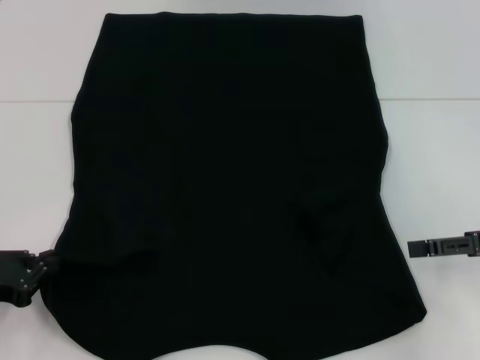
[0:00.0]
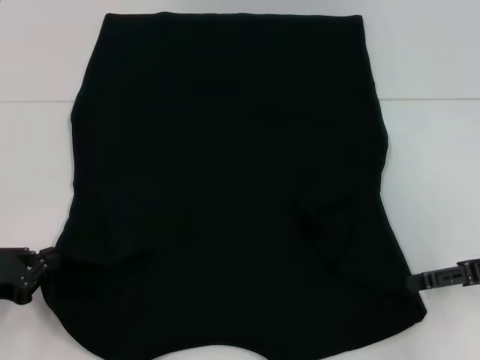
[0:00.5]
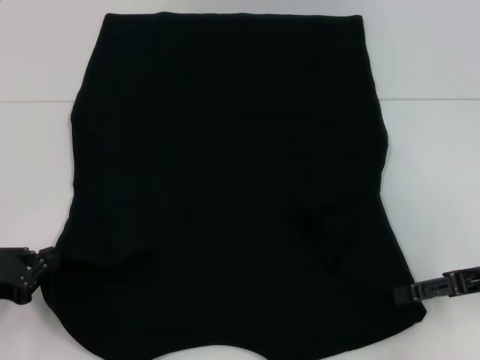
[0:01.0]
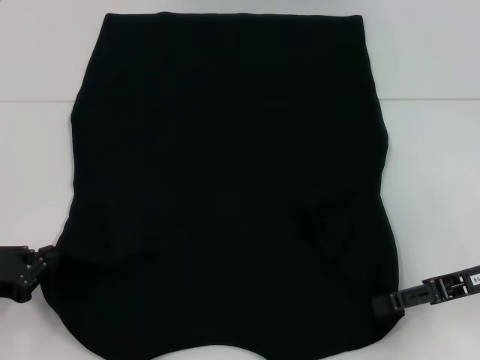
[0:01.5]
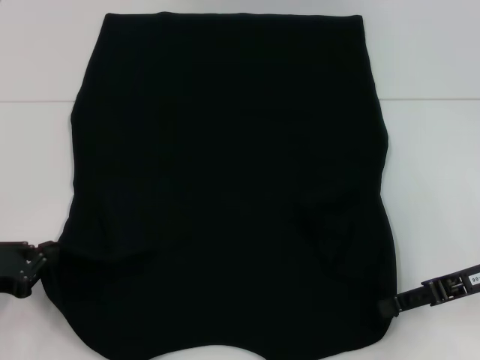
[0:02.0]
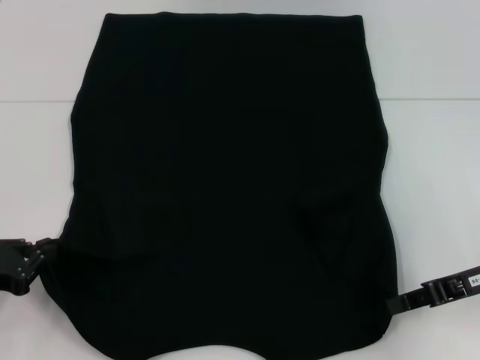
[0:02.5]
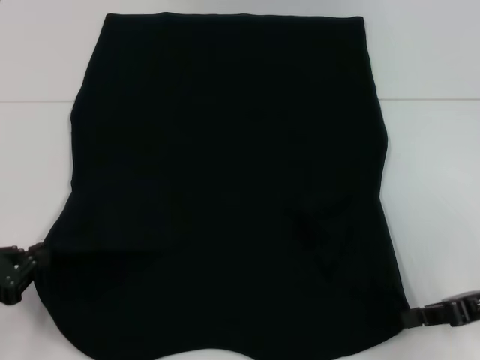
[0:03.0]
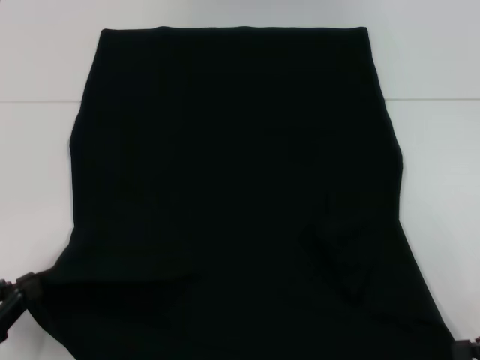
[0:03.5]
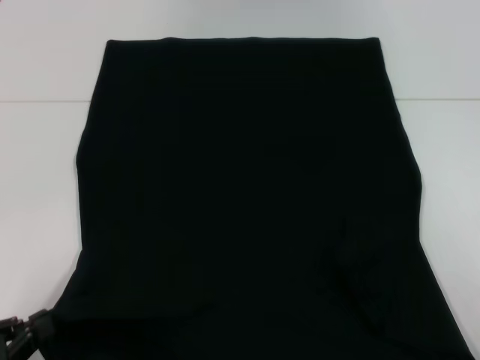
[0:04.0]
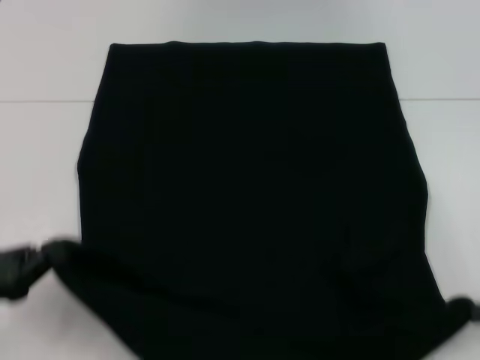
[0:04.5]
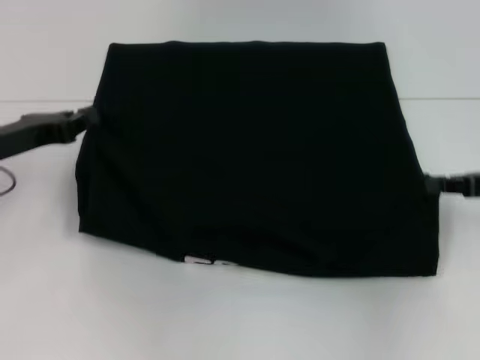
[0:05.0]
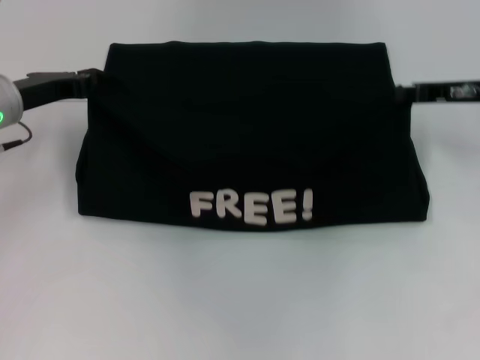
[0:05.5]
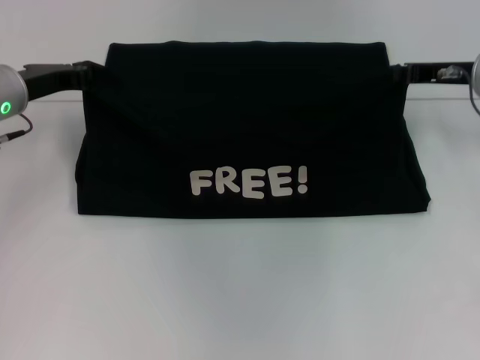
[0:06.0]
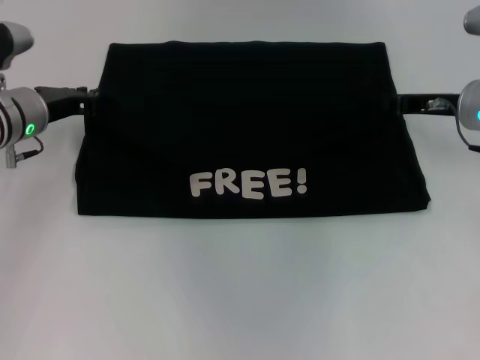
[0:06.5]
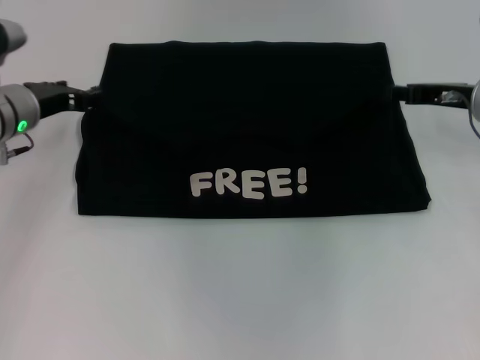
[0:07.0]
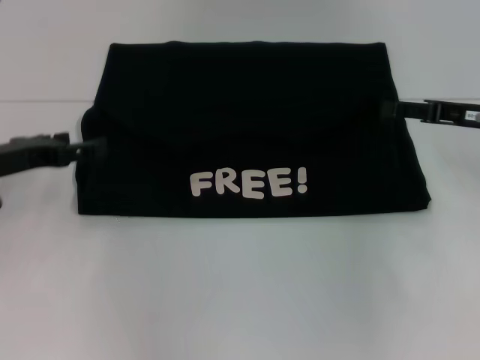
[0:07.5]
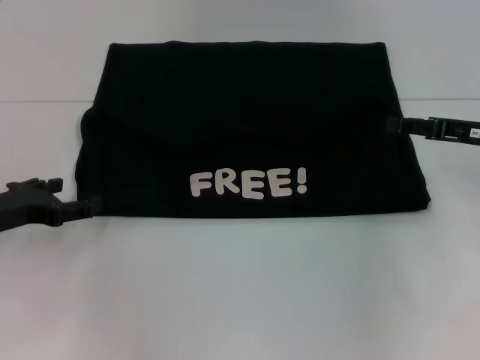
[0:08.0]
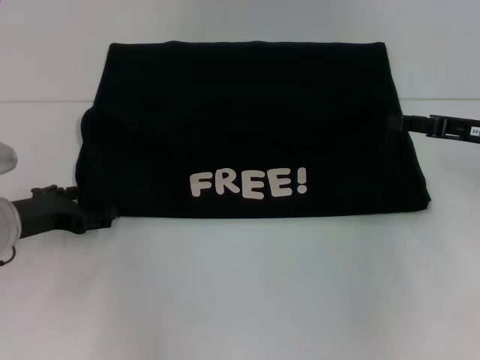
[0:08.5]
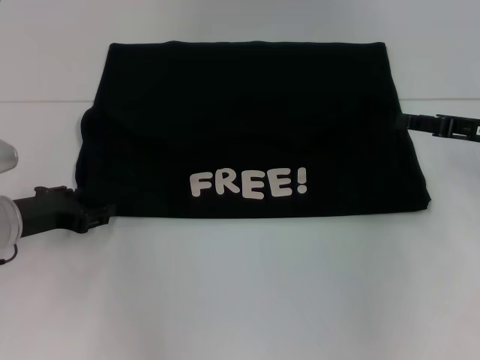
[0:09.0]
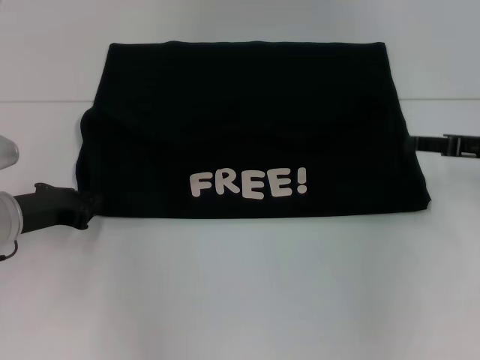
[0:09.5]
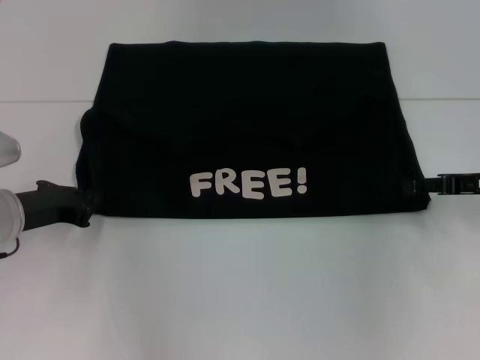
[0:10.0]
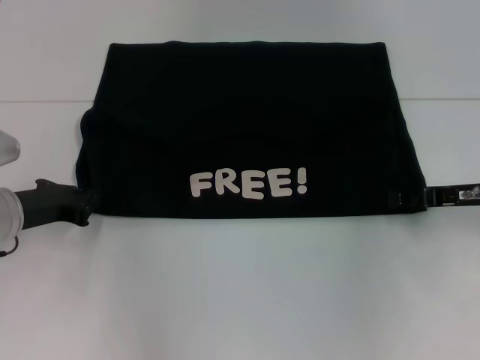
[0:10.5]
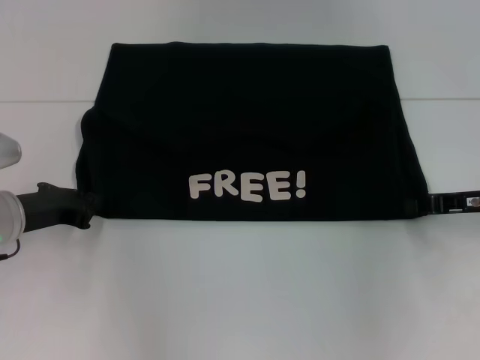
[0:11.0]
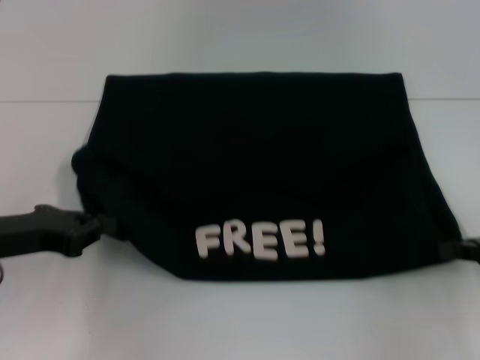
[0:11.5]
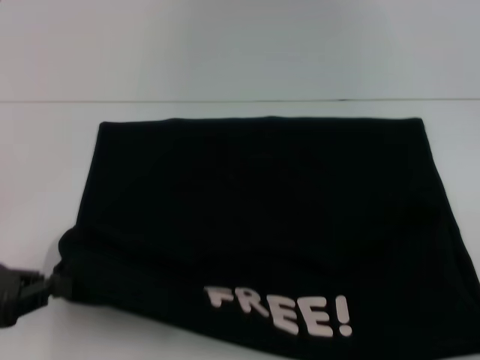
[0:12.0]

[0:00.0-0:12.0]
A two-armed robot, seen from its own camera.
Step, 0:00.0 to 0:02.5: Grab the bottom right corner with your right hand.
Step, 0:03.0 to 0:06.5: Fold the clothes with your left hand.
Step, 0:03.0 to 0:06.5: Fold the clothes with your right hand.
0:00.0 to 0:02.0: The right gripper shifts by about 5 cm.
0:02.0 to 0:04.0: The left gripper heads backward, covering roughly 10 cm, while the right gripper moves backward and to the right, some 15 cm, and closes.
0:04.0 to 0:06.0: The right gripper is displaced forward and to the left by approximately 30 cm, while the left gripper goes roughly 30 cm forward.
0:06.0 to 0:08.0: The right gripper is displaced backward by roughly 5 cm, and opens. Meanwhile the left gripper is displaced backward and downward by roughly 15 cm, and opens its fingers.
0:08.0 to 0:10.0: The left gripper closes.
0:10.0 to 0:12.0: The right gripper goes approximately 15 cm backward and to the right, and closes up. The left gripper goes some 15 cm backward, upward and to the left.

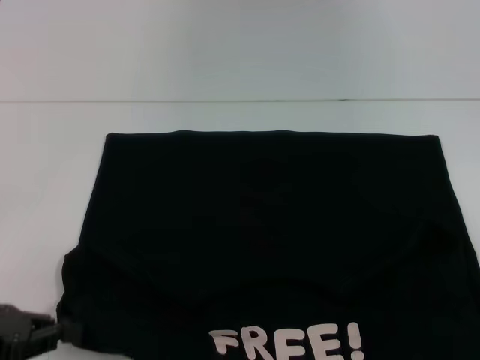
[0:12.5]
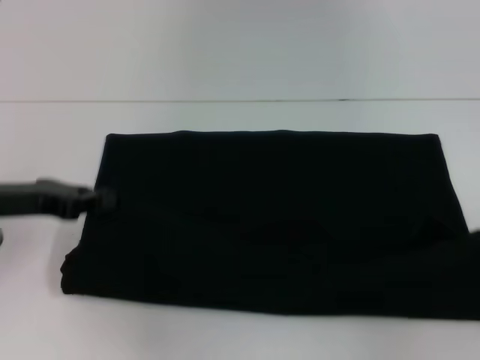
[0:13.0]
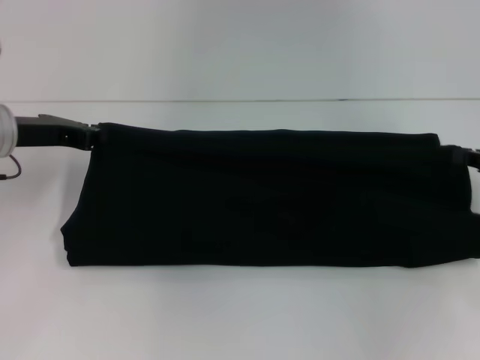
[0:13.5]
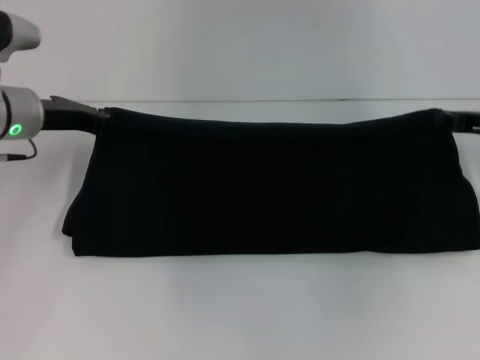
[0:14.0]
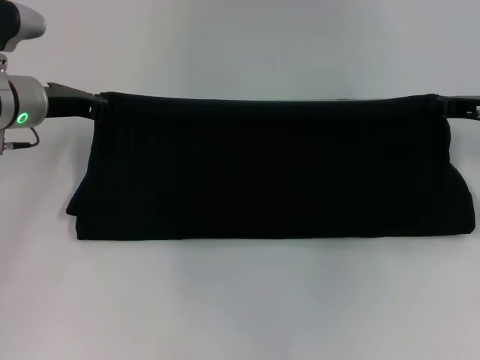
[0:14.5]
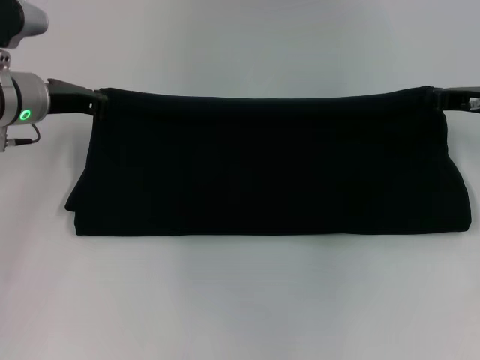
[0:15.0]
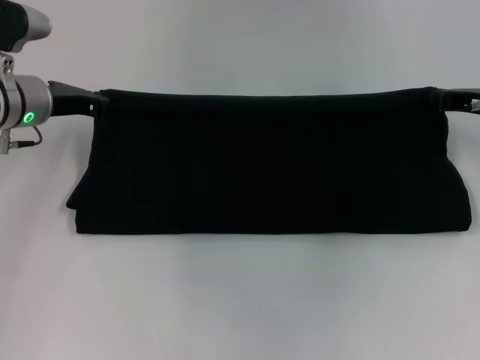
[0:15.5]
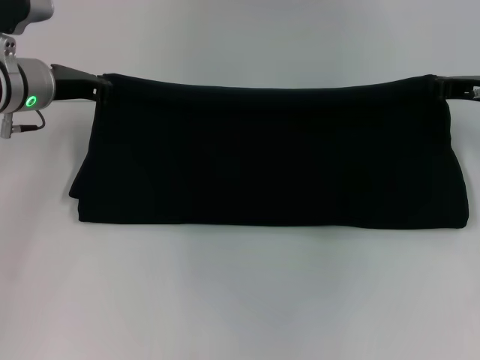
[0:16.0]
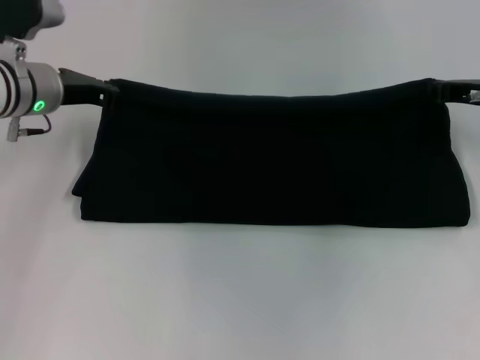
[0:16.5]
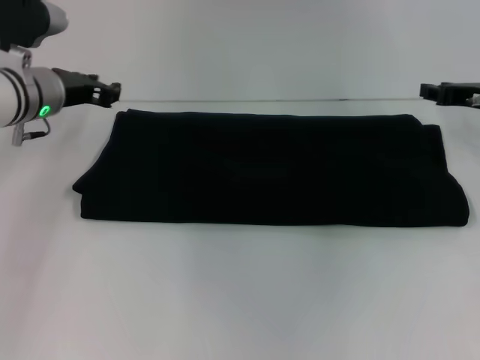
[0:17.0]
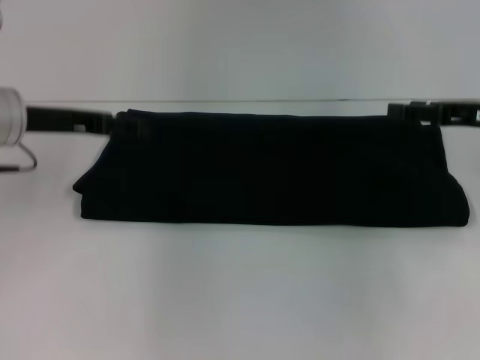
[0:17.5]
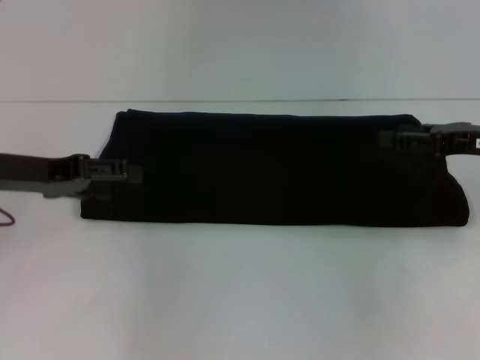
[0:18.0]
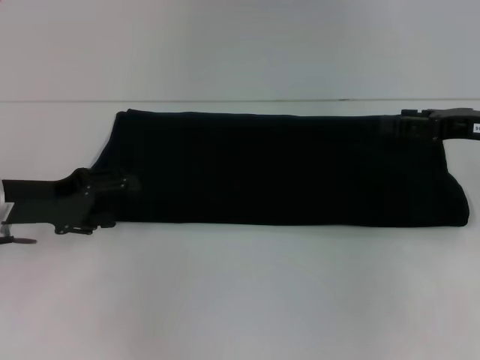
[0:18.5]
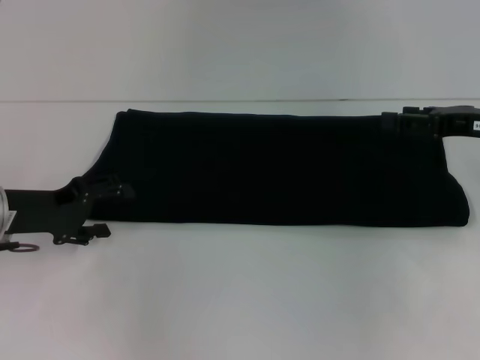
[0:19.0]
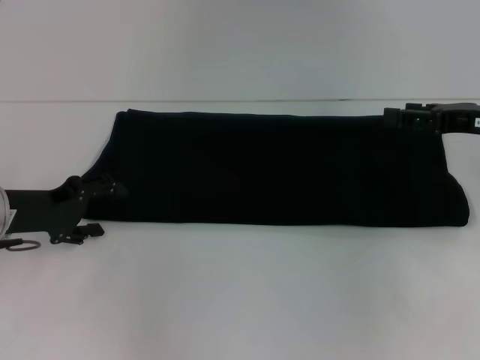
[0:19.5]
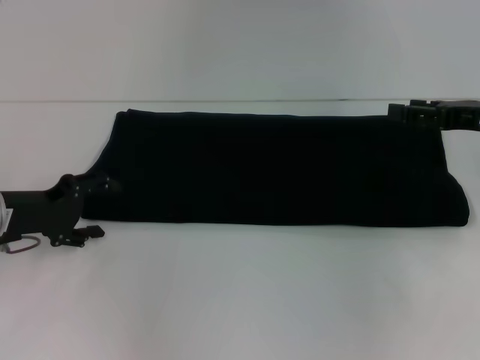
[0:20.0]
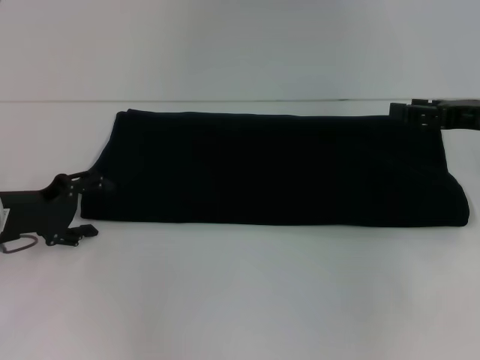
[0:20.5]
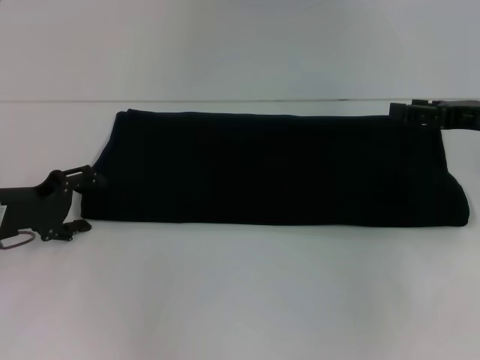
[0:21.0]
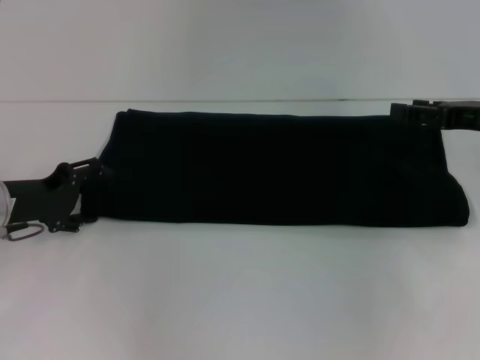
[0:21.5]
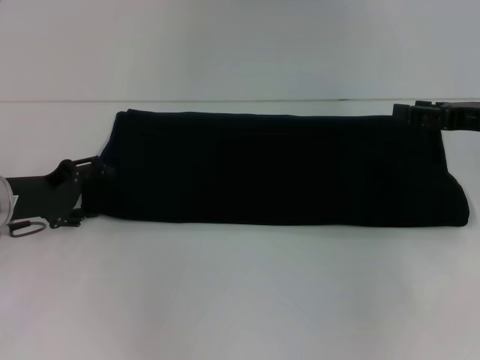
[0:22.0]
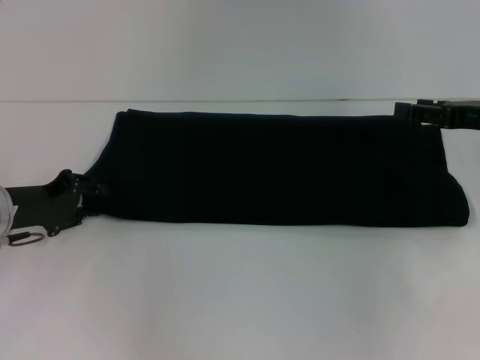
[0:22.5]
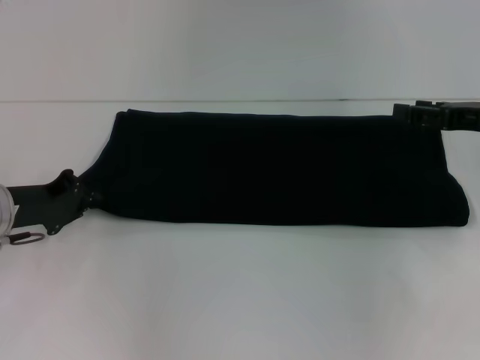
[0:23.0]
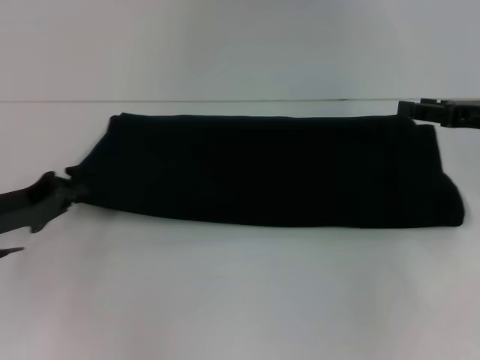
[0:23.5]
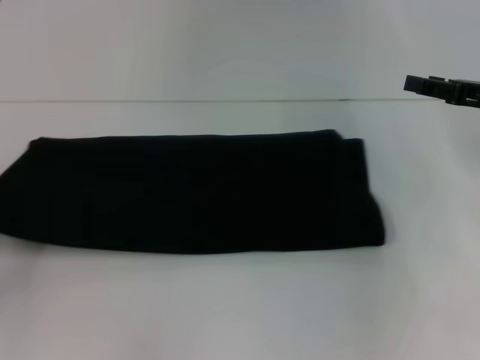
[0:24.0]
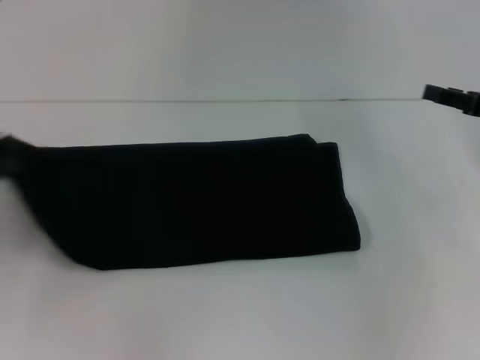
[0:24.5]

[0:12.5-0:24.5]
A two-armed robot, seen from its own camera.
Step, 0:12.5 to 0:16.5: Fold the clothes with your right hand.
0:12.5 to 0:14.5: The right gripper shifts roughly 25 cm forward and to the left. Meanwhile the left gripper goes about 25 cm forward.
0:14.5 to 0:16.5: The grippers stay close to where they were, moving slightly.
0:16.5 to 0:18.5: The right gripper heads backward, covering some 5 cm, and opens its fingers, while the left gripper shifts about 10 cm backward and to the left, and opens up.
0:20.5 to 0:22.5: The grippers stay close to where they were, moving slightly.
0:22.5 to 0:24.5: The left gripper goes some 15 cm to the left, backward and upward, and closes.

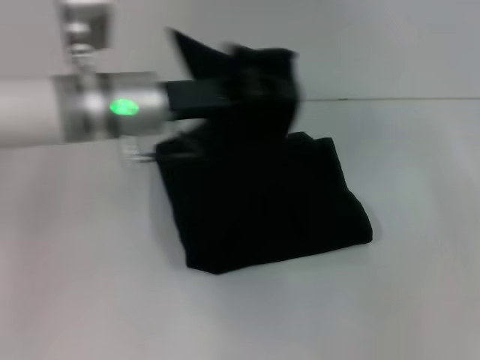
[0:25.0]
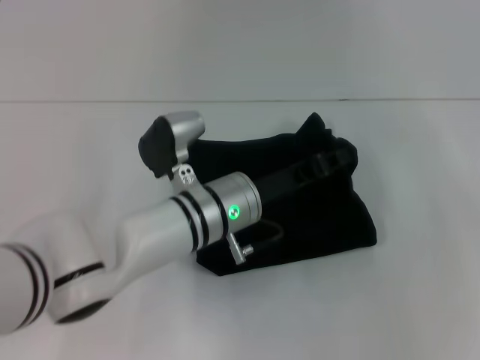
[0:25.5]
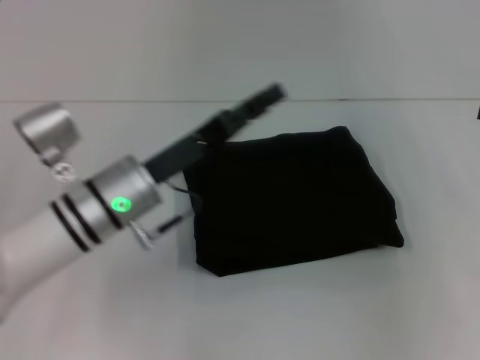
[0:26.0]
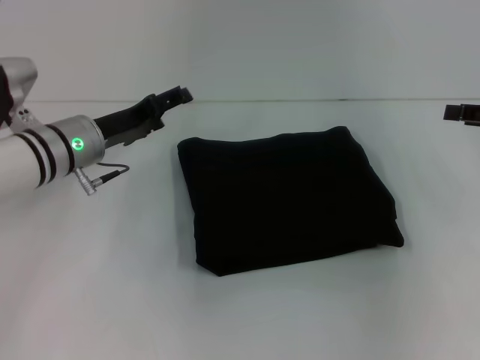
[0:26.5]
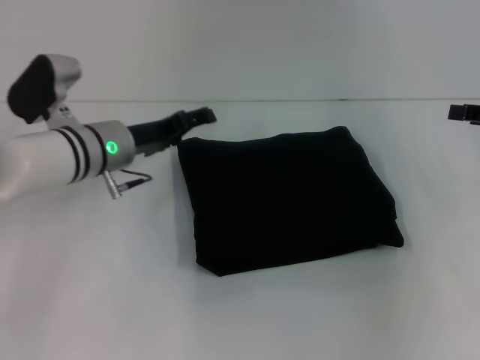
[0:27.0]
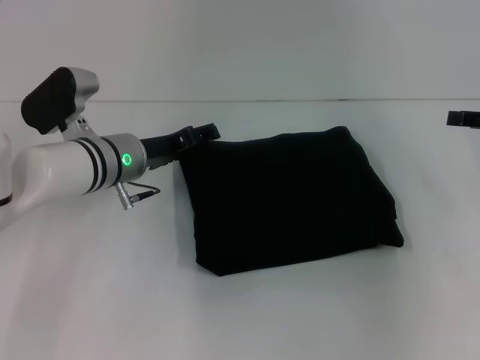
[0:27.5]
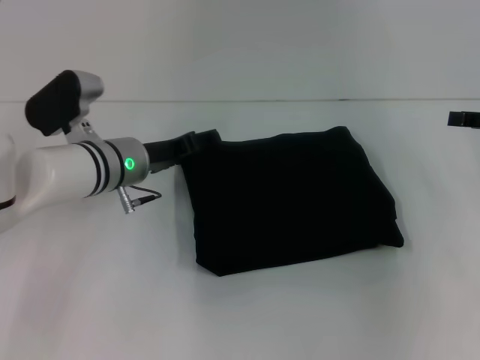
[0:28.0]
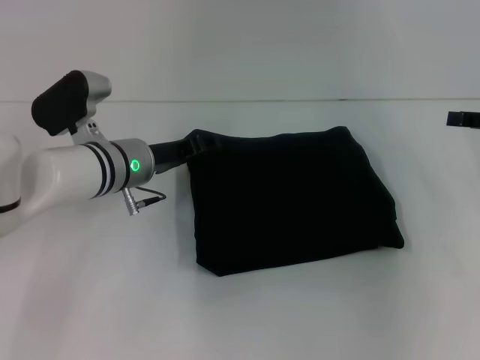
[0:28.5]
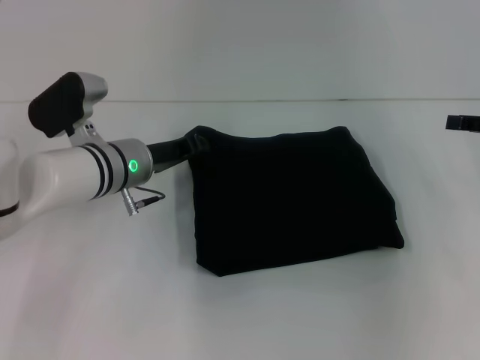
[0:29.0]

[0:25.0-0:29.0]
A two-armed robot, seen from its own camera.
0:25.0 to 0:27.0: The right gripper shifts roughly 5 cm to the left. Meanwhile the left gripper travels downward by approximately 10 cm, reaches approximately 10 cm to the right, then returns, and opens up.
0:27.0 to 0:29.0: The left gripper closes up.
